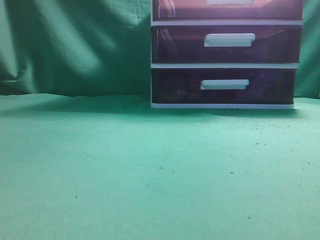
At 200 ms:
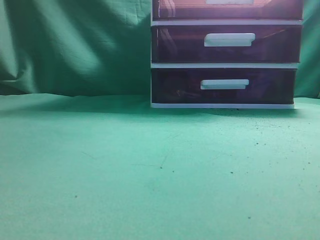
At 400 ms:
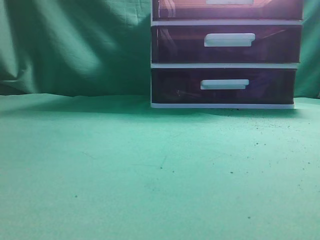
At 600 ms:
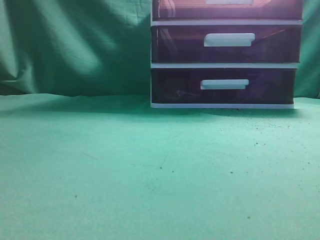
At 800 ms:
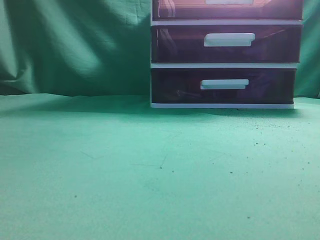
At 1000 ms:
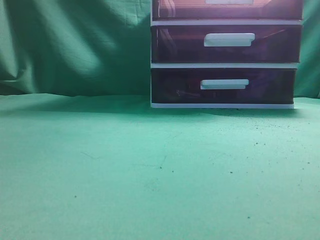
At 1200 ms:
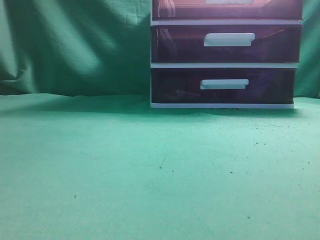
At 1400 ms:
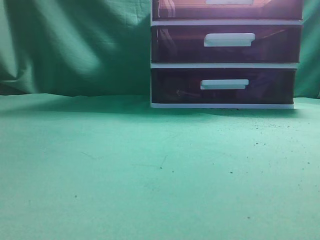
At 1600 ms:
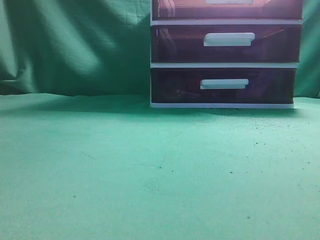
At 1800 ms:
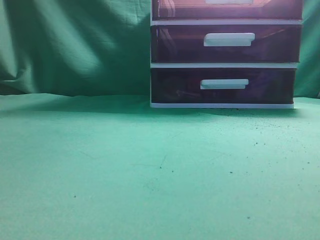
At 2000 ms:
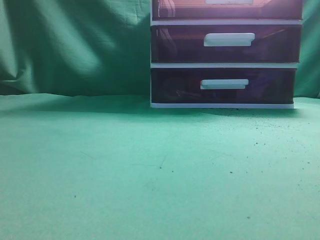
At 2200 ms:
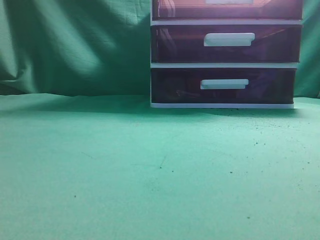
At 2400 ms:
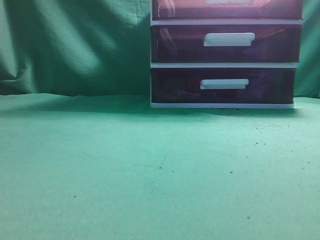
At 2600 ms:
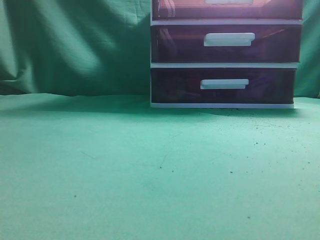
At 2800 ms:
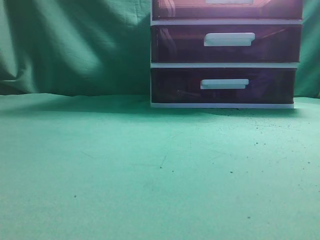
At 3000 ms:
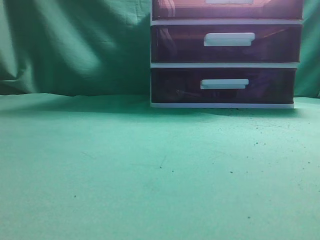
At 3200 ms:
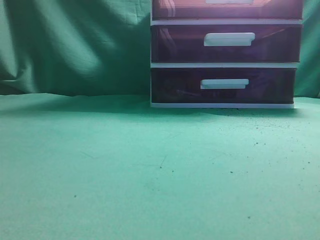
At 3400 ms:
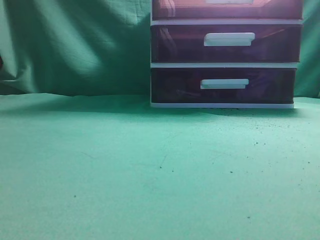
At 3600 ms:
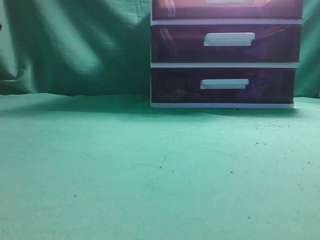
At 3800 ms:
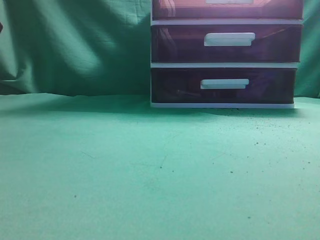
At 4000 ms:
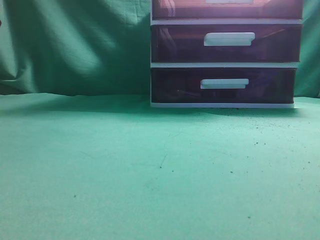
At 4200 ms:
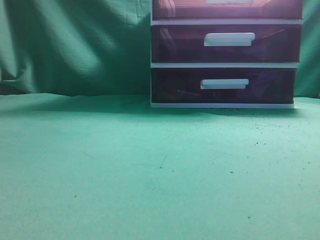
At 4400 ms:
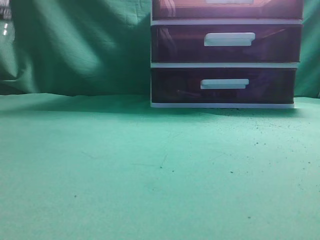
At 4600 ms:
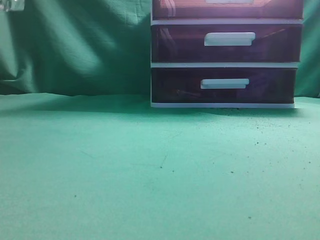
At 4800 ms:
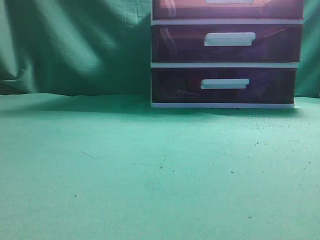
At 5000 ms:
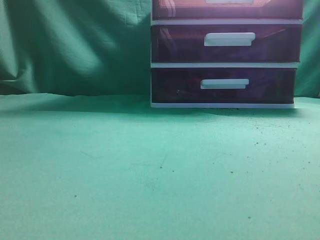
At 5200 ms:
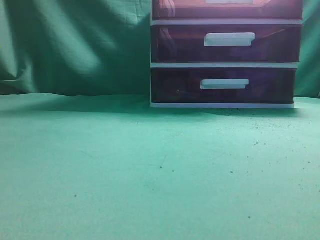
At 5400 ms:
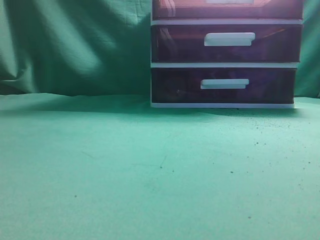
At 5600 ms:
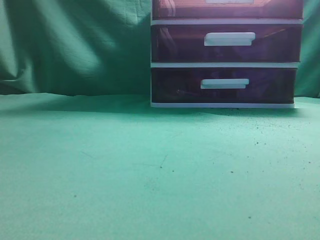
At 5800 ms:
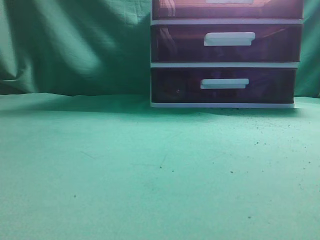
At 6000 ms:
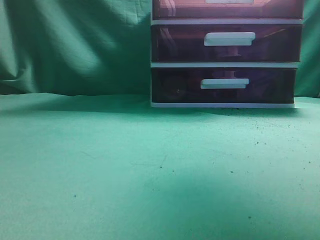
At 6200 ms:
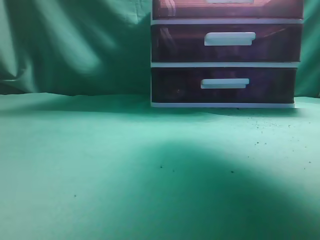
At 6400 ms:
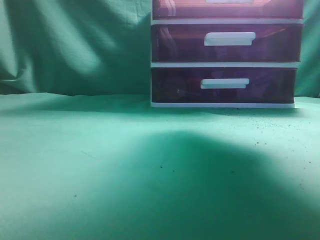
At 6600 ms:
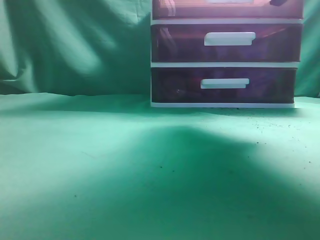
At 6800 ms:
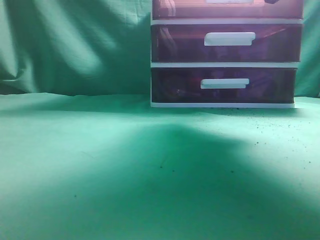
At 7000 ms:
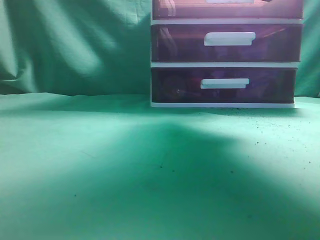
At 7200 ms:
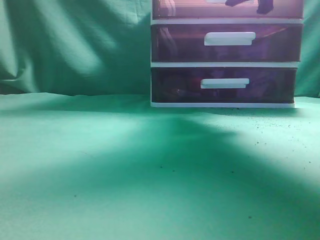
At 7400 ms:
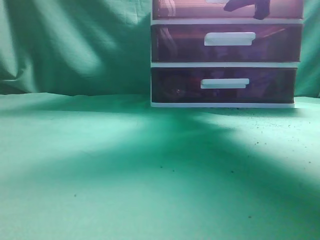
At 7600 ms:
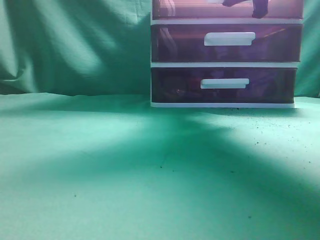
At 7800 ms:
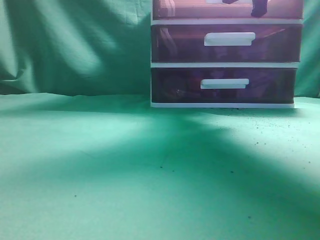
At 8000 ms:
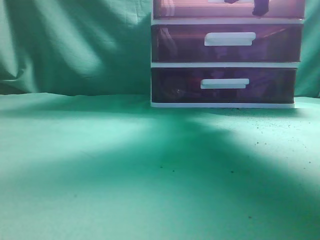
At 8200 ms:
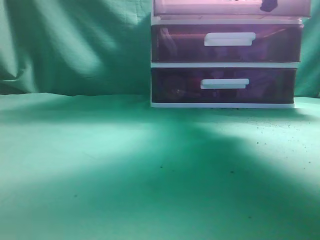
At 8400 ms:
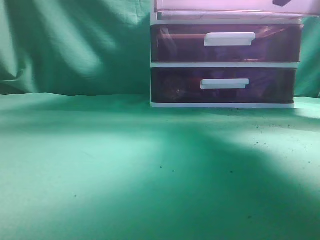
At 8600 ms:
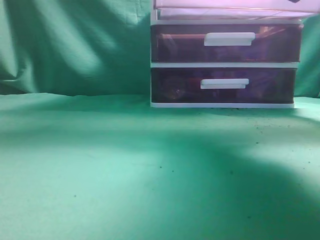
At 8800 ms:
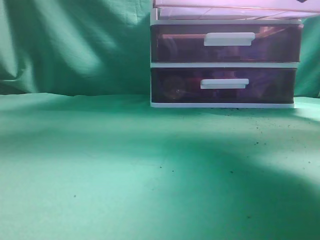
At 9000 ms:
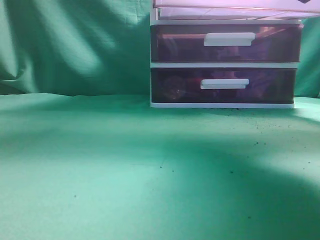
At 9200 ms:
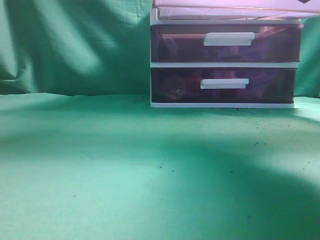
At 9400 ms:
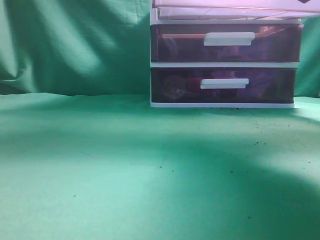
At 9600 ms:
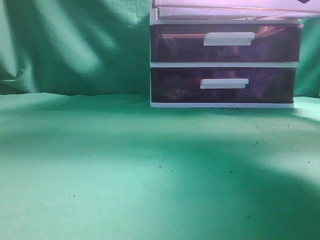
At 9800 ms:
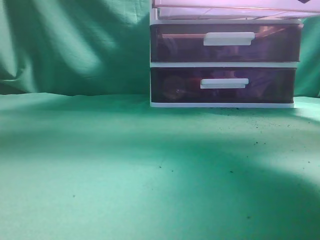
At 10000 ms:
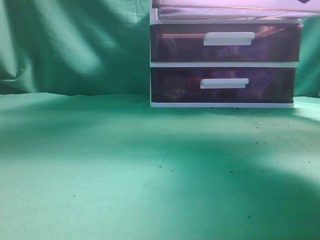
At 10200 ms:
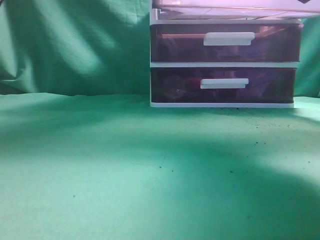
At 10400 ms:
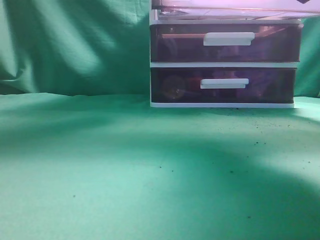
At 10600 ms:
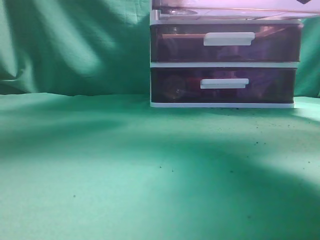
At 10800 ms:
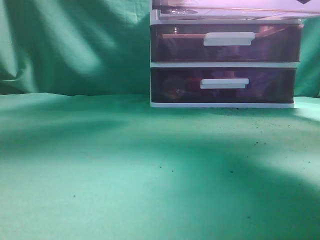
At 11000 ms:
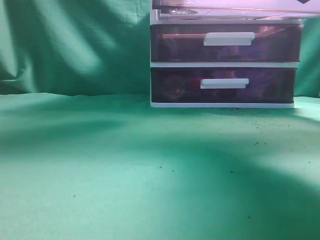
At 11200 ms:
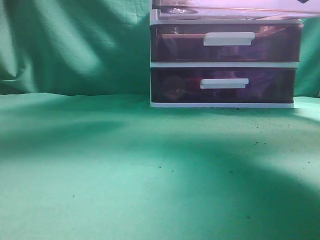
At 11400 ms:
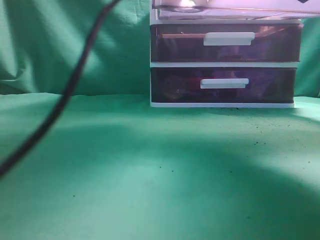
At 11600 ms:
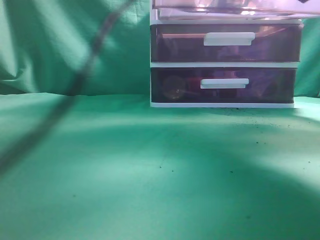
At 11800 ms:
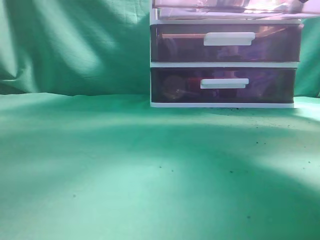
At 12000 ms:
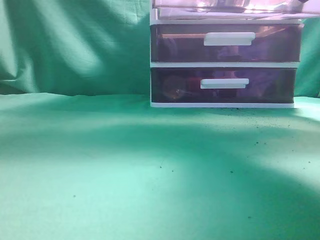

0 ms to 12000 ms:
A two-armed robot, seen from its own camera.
Task of the whole recording: place the water bottle into the drawer.
Step, 0 ms to 9000 ms: Open the drawer.
4400 ms to 6000 ms: The left gripper goes about 10 cm upward, backward and to the right. Meanwhile the right gripper heads forward and upward, covering about 30 cm.
6000 ms to 7600 ms: The right gripper goes roughly 15 cm forward and downward.
7600 ms to 9000 ms: The right gripper goes about 10 cm backward.
9000 ms to 10400 ms: The left gripper shifts roughly 25 cm to the right and forward.
10400 ms to 12000 ms: The left gripper reaches some 10 cm to the right, then returns, and opens, then closes once more.

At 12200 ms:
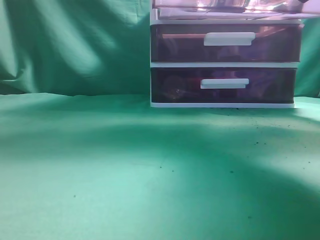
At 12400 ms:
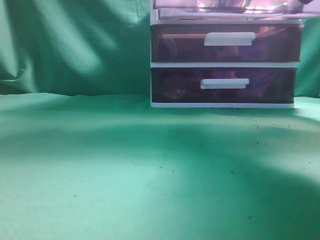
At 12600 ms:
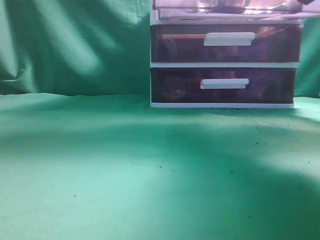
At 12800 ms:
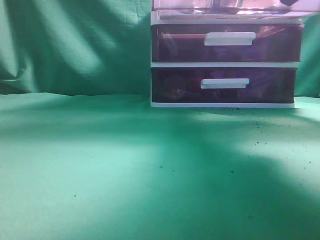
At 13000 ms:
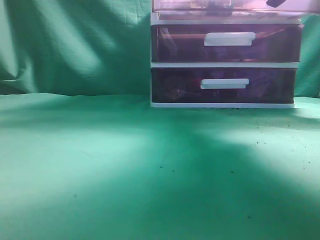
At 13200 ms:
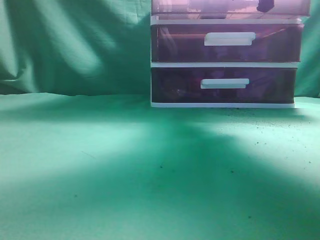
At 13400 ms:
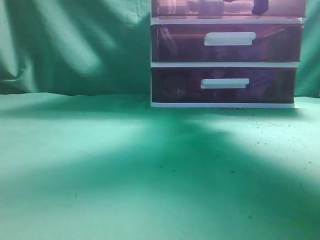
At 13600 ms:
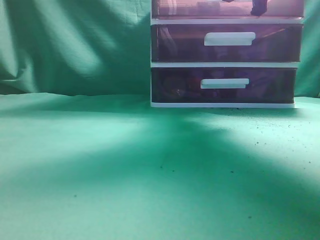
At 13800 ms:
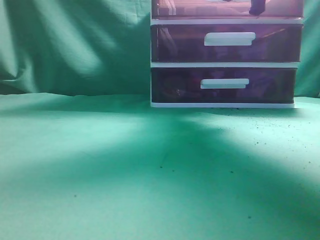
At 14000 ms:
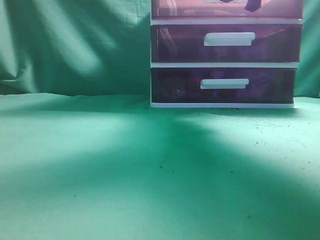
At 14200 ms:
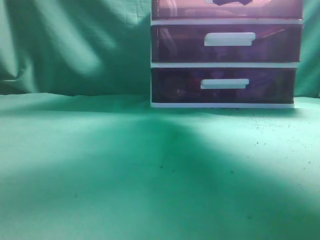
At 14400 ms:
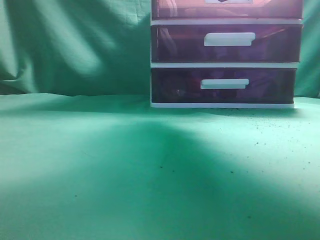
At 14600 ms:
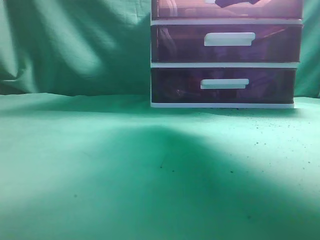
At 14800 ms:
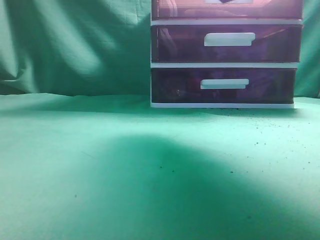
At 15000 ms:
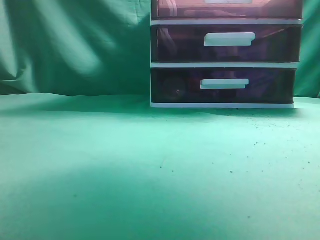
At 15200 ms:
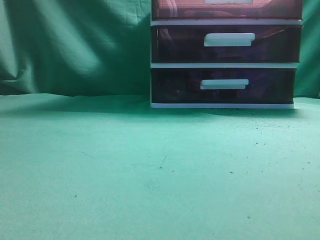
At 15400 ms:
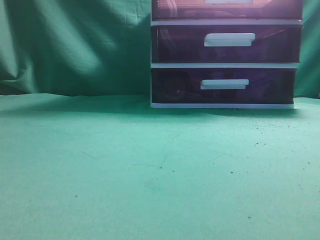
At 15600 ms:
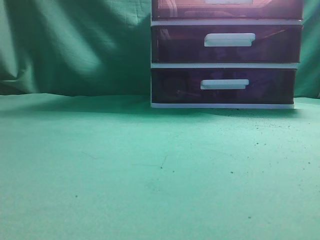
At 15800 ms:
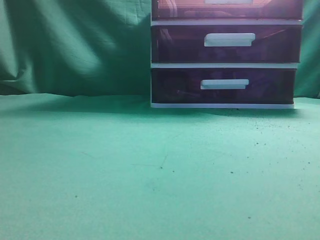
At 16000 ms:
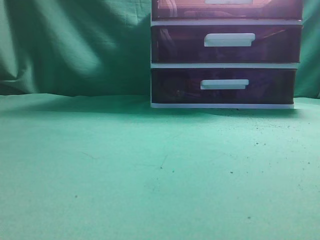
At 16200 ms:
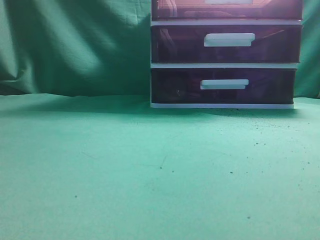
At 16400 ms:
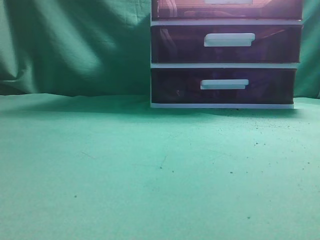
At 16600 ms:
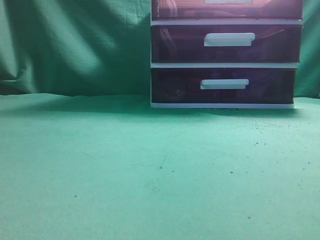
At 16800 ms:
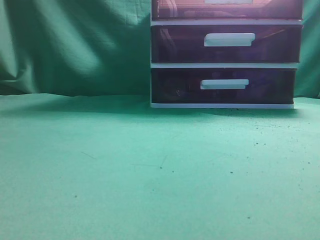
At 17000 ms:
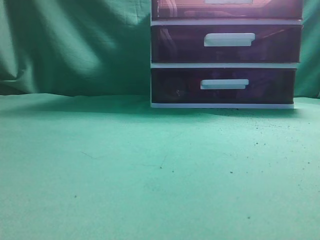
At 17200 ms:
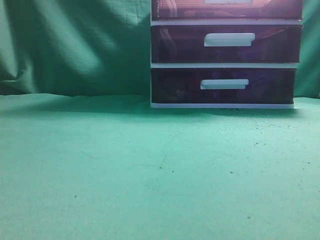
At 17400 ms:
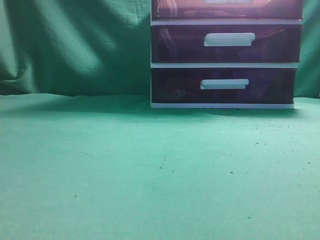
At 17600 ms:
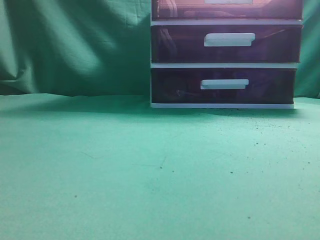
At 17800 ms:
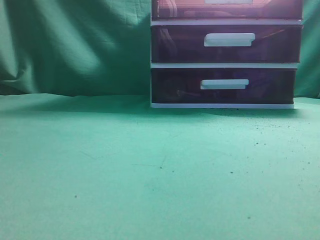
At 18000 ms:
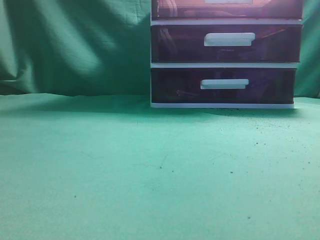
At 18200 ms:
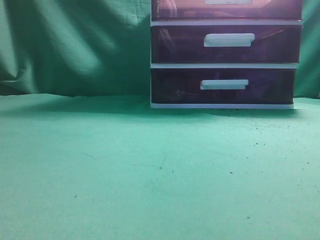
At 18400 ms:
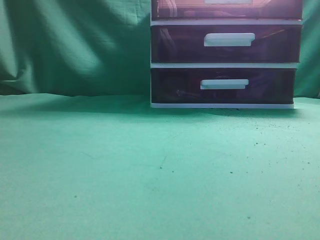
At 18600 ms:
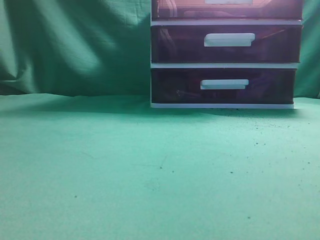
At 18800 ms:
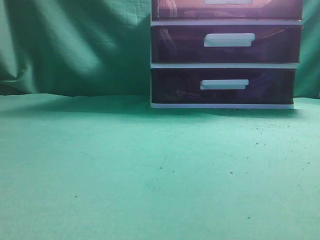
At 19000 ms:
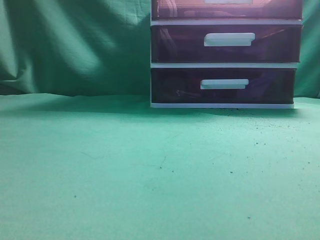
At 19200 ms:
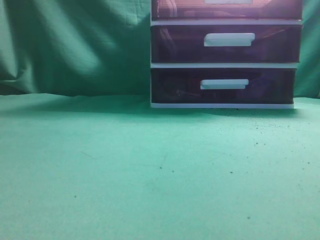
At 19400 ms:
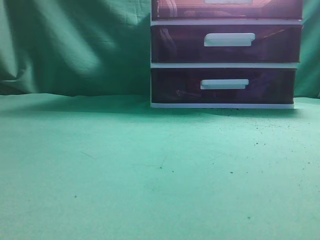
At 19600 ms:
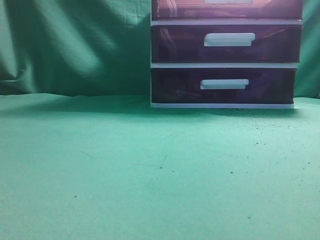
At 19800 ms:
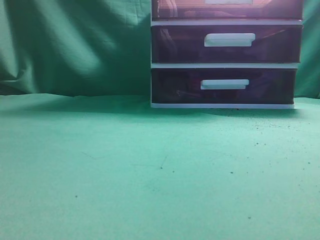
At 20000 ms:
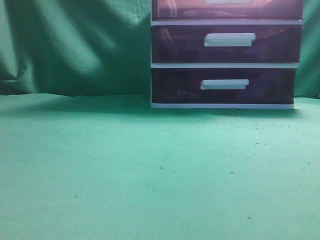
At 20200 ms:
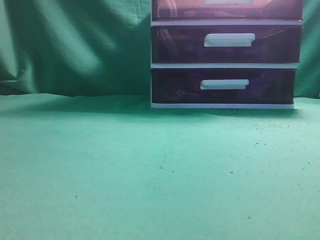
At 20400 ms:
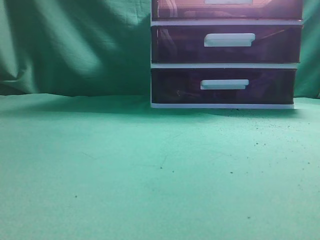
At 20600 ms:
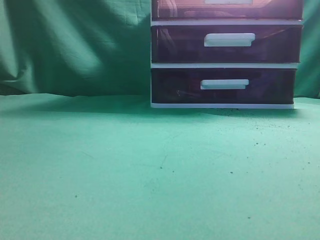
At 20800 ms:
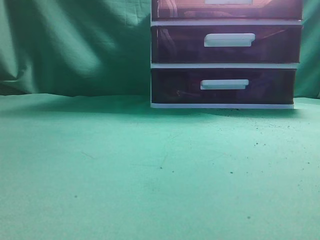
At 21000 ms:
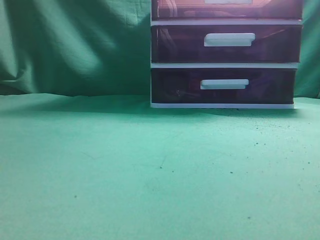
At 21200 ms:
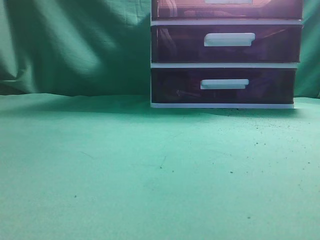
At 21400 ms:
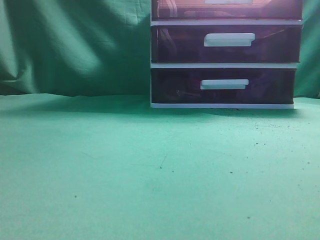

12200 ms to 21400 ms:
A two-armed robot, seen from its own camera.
Task of the whole recording: place the water bottle into the drawer.
Step, 12600 ms to 14600 ms: Close the drawer.
12200 ms to 13800 ms: The left gripper heads backward and to the left, covering approximately 30 cm. Meanwhile the right gripper shifts roughly 10 cm forward.
13800 ms to 15200 ms: The right gripper heads backward, covering approximately 15 cm, and opens and closes again. The left gripper travels backward by approximately 5 cm.
15200 ms to 16800 ms: The right gripper goes some 25 cm backward and downward. The left gripper is displaced downward by roughly 15 cm.
